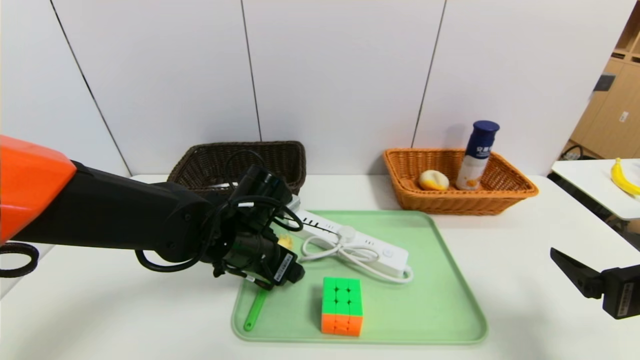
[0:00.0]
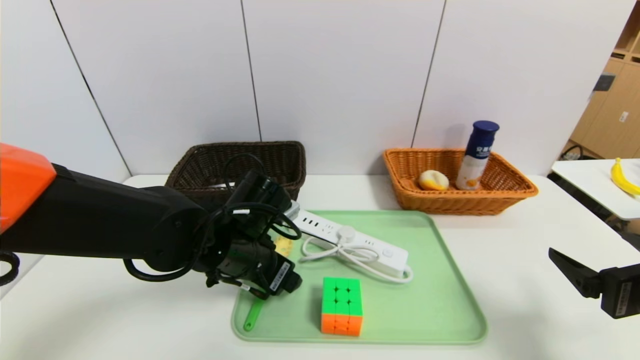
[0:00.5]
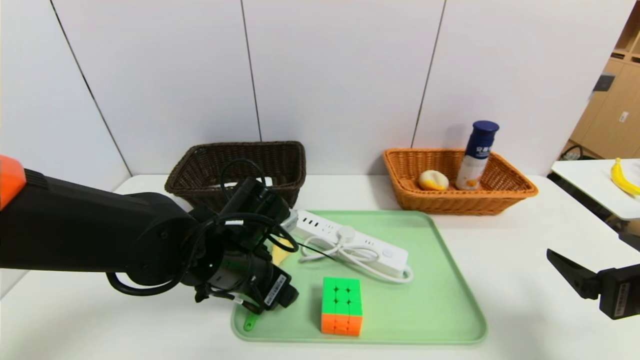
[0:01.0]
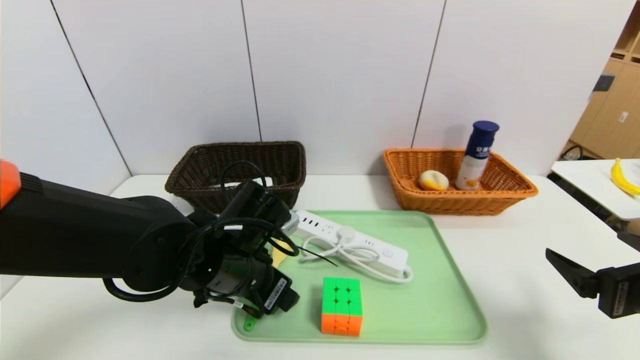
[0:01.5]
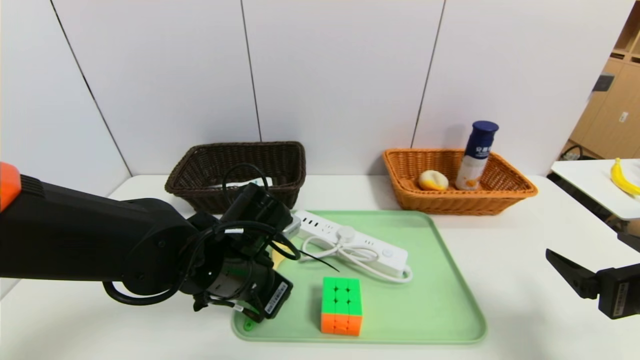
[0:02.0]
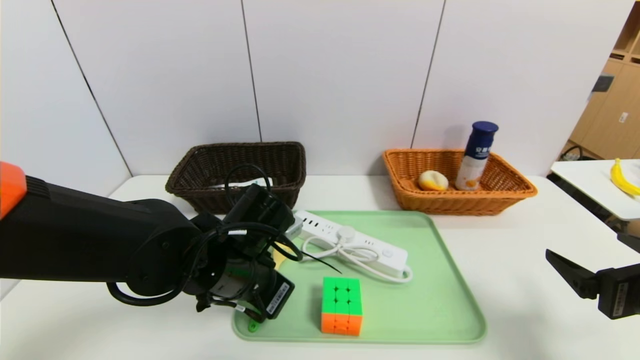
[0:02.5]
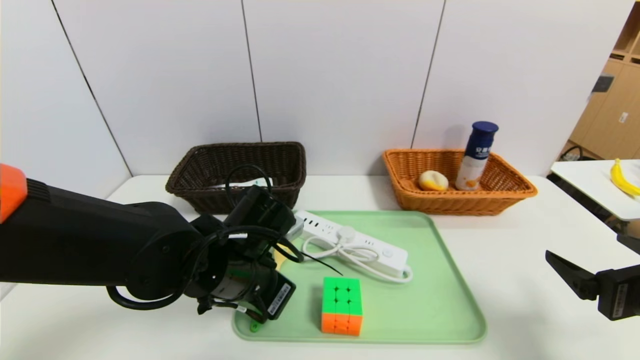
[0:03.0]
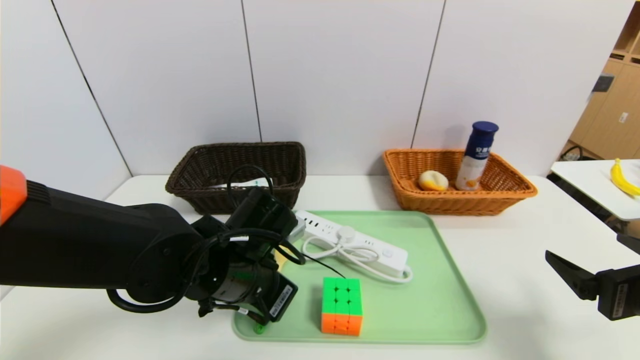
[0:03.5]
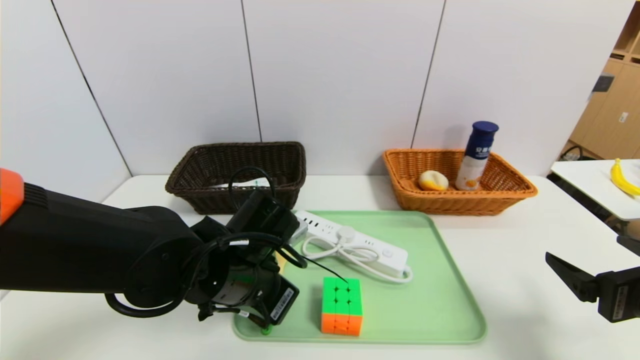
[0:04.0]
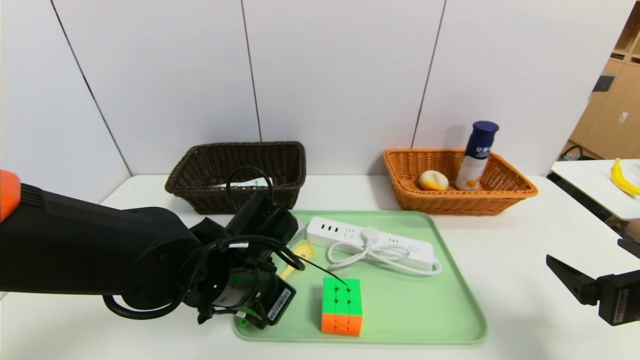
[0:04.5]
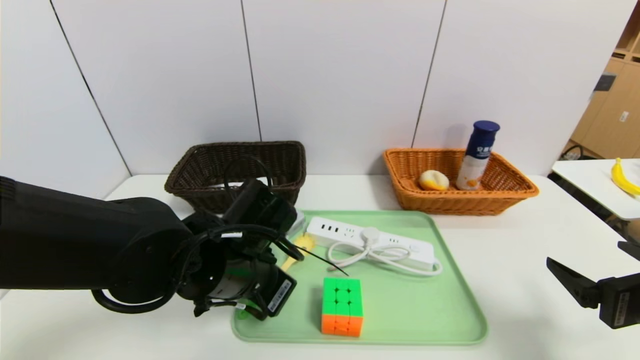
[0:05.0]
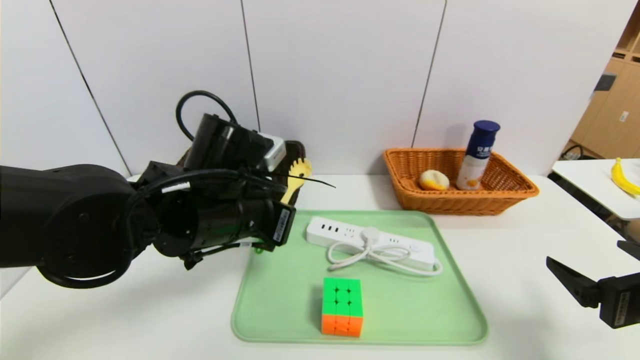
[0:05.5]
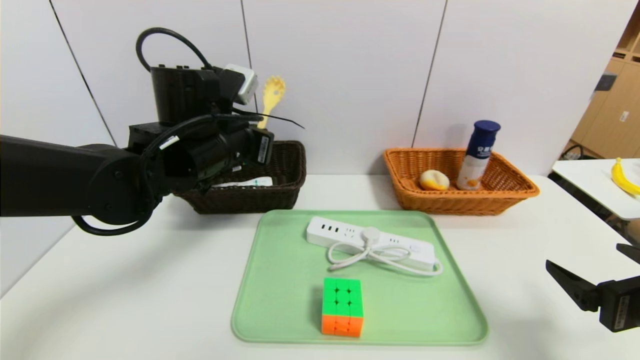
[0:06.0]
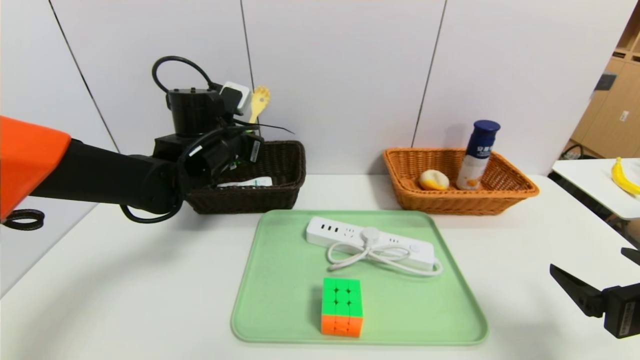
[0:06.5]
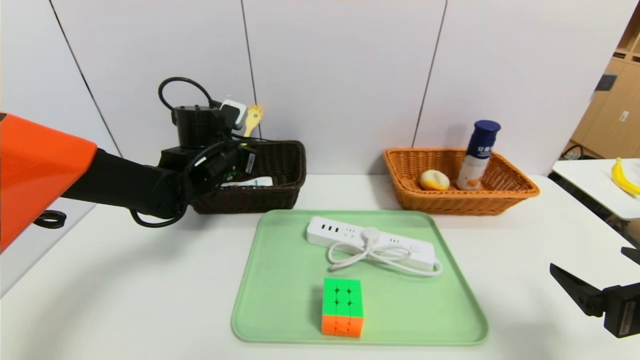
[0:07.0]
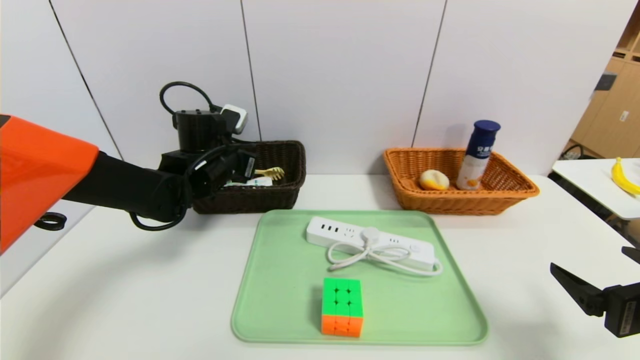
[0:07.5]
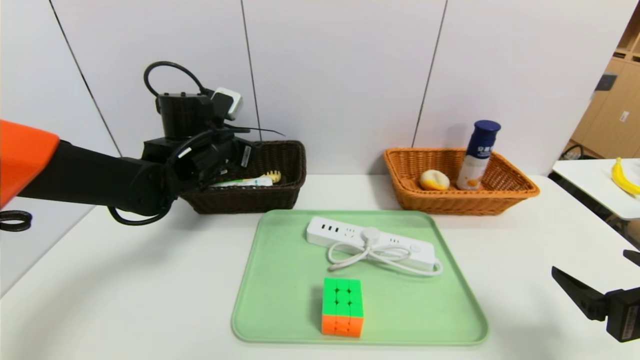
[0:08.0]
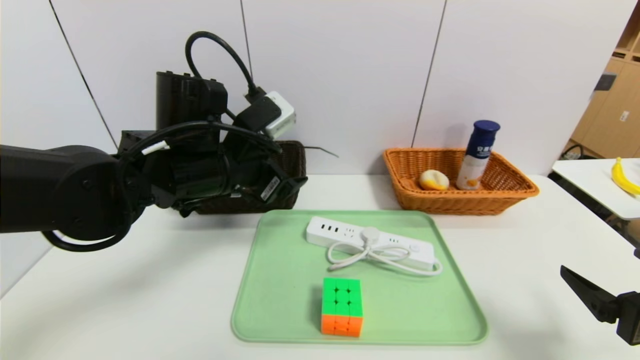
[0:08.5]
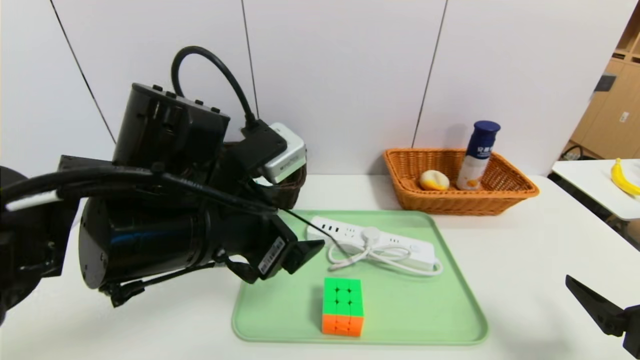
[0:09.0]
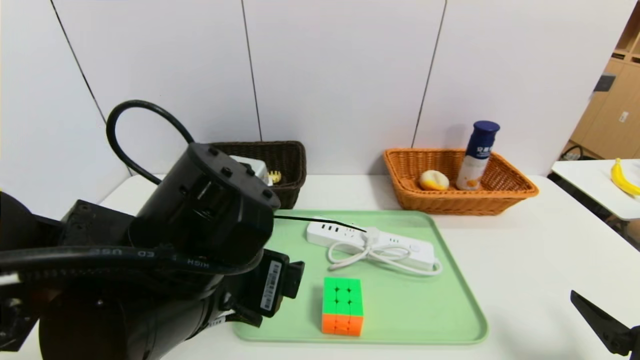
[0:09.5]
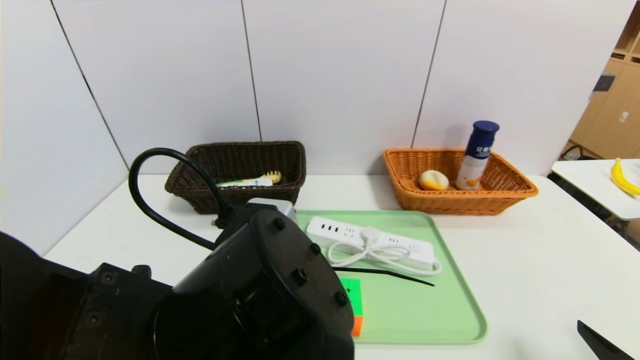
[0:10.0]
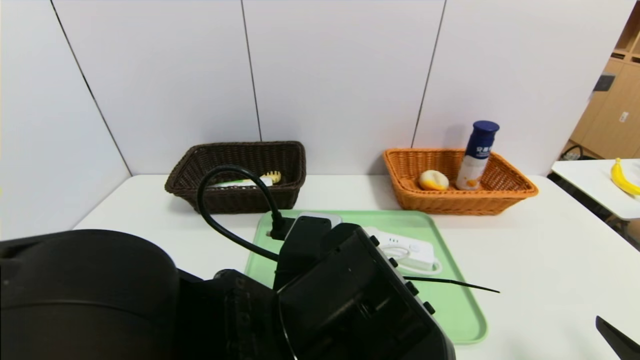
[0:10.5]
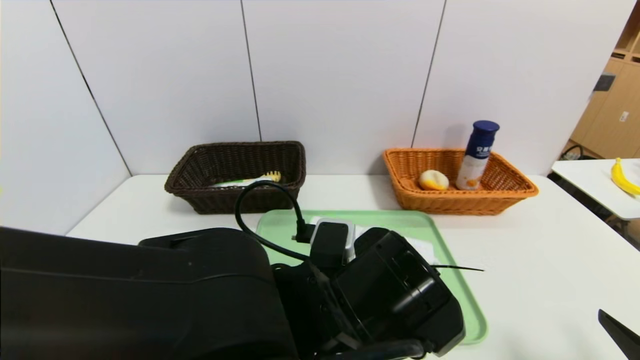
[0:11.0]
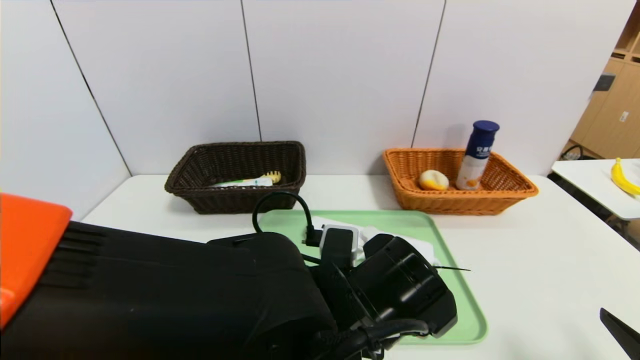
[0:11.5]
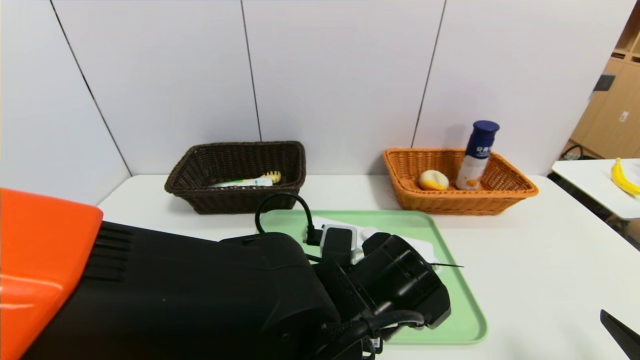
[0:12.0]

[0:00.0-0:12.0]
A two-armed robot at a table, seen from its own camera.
Task of the whole recording: place the food in the right basket with the right gripper, and place the non food items in the left basket with the left gripper.
Step, 0:00.0 to 0:07.5: Grasp the back scratcher and put it in the left basket.
0:00.0 to 0:02.0: The left gripper closes.
0:02.0 to 0:04.0: The two grippers keep their place.
0:04.0 to 0:06.0: The left gripper goes some 15 cm upward and forward.
0:06.0 to 0:08.0: The left gripper moves forward, some 5 cm, and opens its fingers.
0:08.0 to 0:10.0: The right gripper moves roughly 5 cm; the left gripper is displaced backward by roughly 25 cm.
0:10.0 to 0:12.0: The left gripper heads to the right, downward and forward, covering some 15 cm.

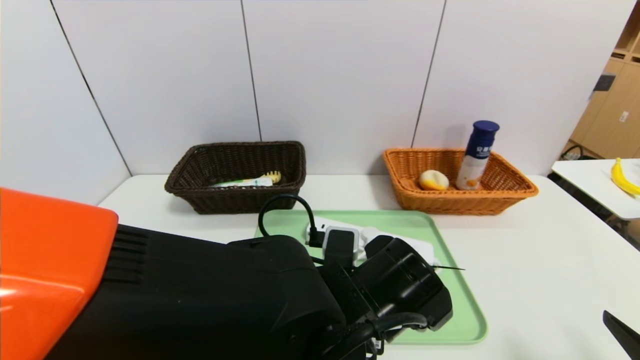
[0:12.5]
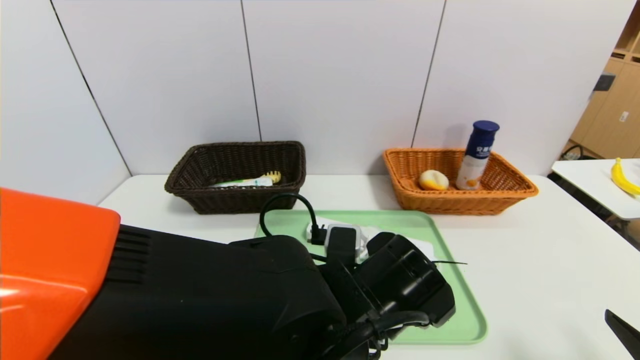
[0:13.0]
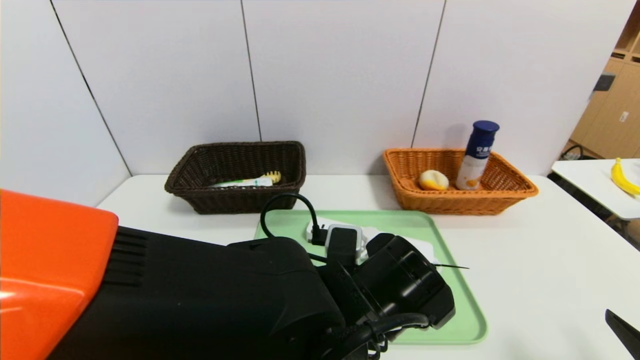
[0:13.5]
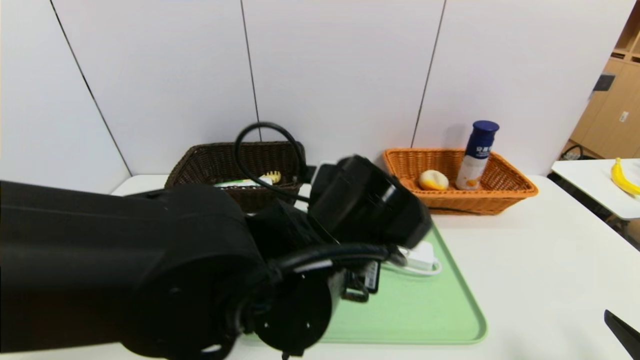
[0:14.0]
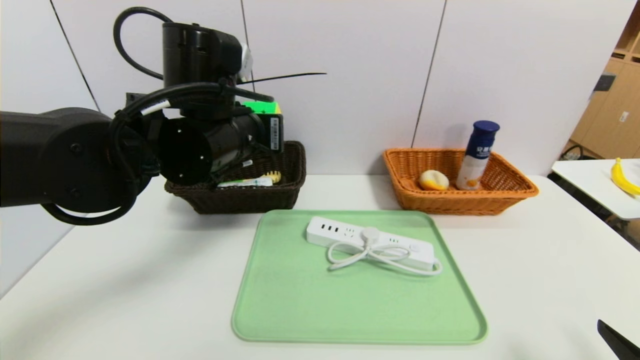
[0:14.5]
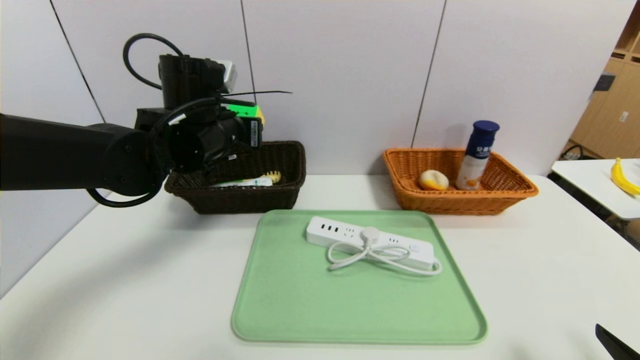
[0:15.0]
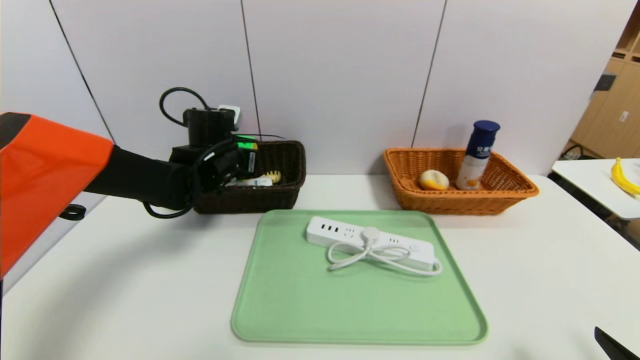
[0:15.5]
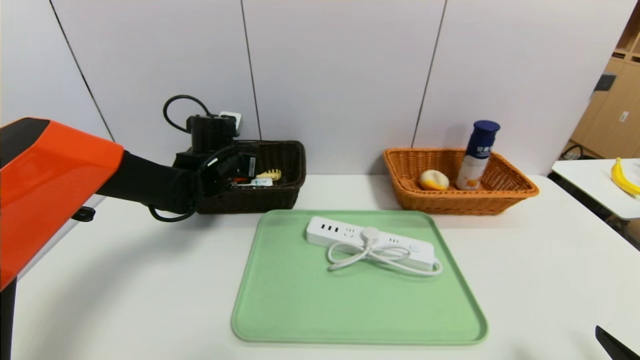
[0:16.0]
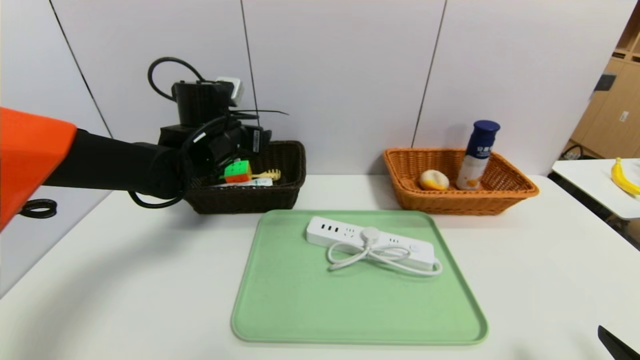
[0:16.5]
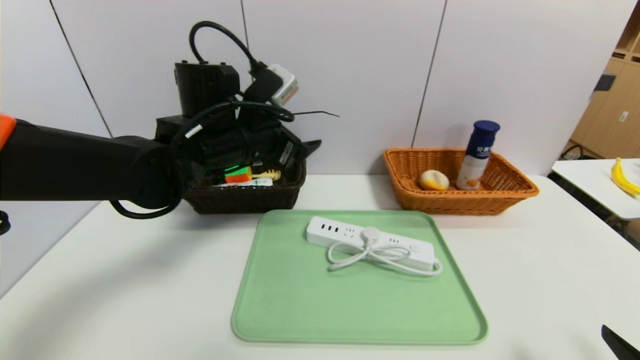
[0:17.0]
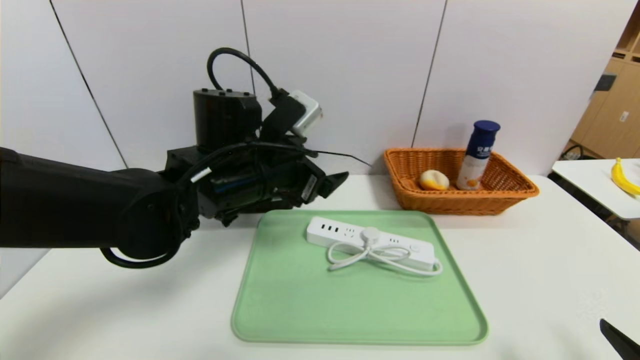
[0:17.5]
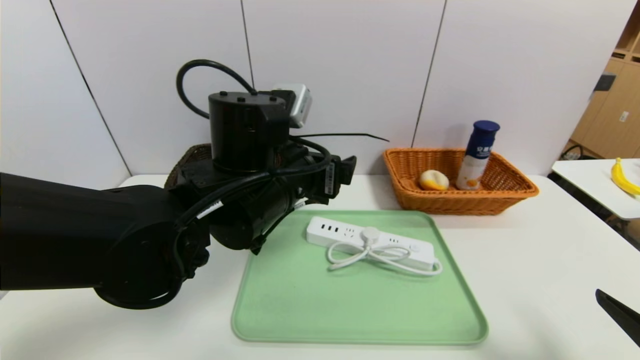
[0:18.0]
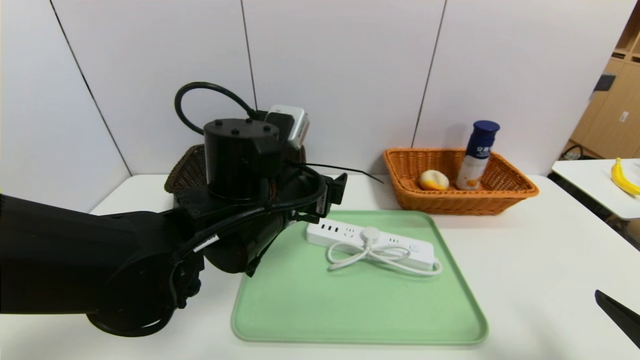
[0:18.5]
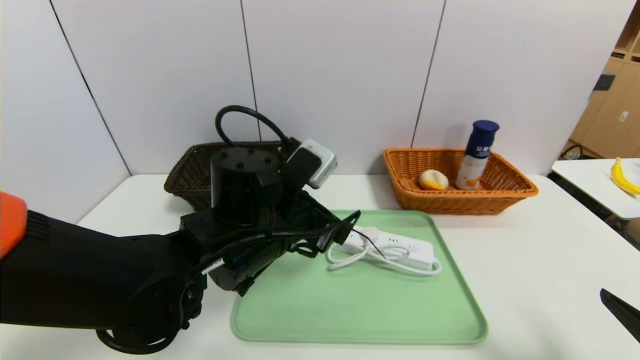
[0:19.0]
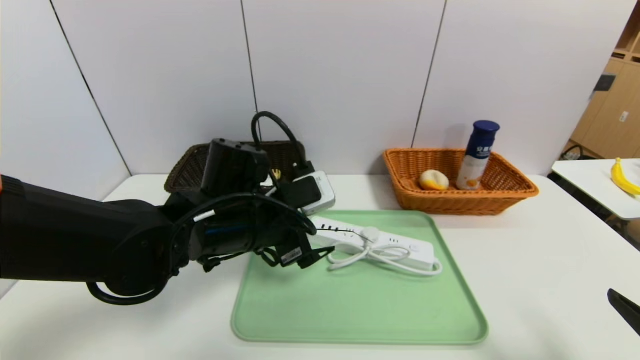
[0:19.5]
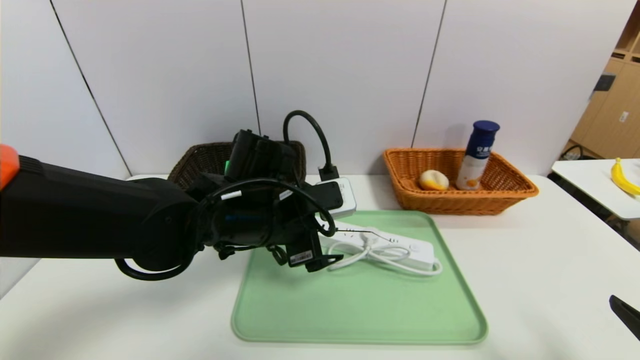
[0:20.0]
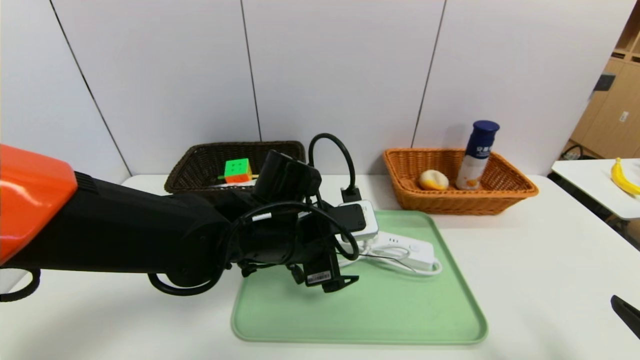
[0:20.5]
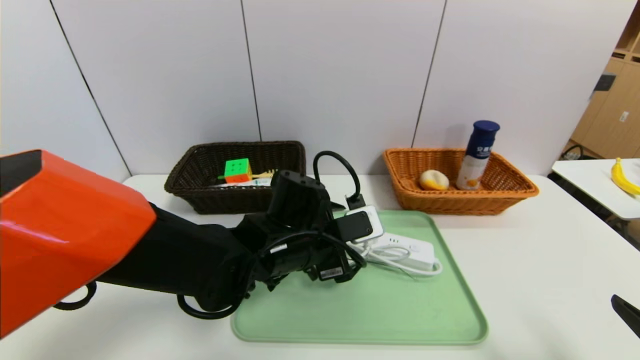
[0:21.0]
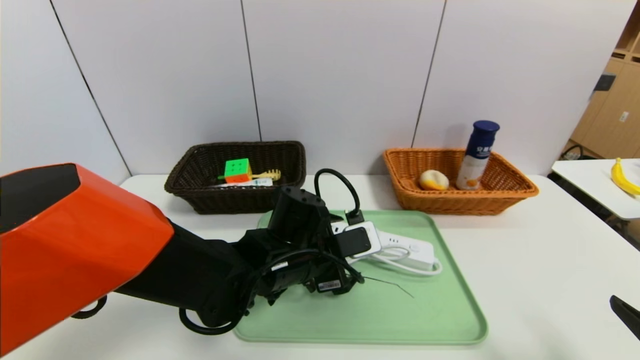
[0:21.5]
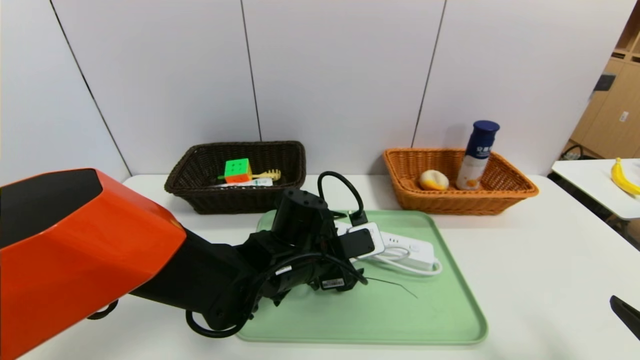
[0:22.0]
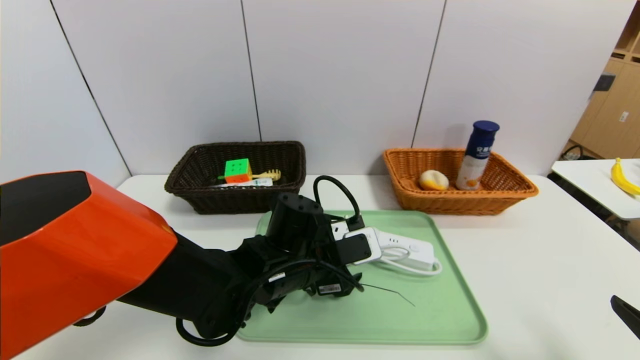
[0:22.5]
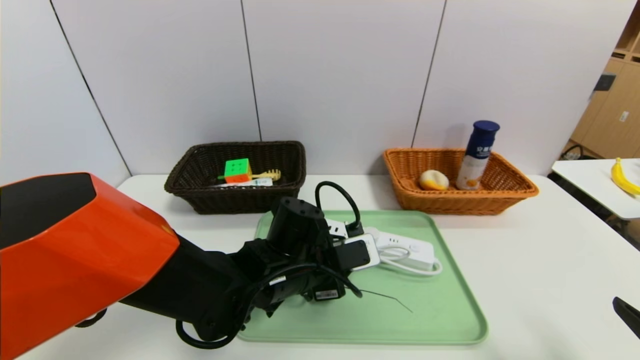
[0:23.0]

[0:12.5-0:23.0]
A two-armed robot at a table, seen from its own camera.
Task of the whole recording: place the food in the right basket with the right gripper, and place the non food items in the left basket with the left gripper.
Step, 0:12.5 to 0:16.0: Grasp the rubiks cube and put it in the left basket.
0:12.5 to 0:14.5: The left gripper travels upward, to the left and forward by roughly 20 cm, and closes.
0:14.5 to 0:16.5: The left gripper heads forward, covering approximately 10 cm, and opens its fingers.
0:16.5 to 0:19.0: The left gripper heads backward and to the right, covering approximately 15 cm.
0:19.0 to 0:21.0: The left gripper is displaced downward by roughly 5 cm.
0:21.0 to 0:23.0: The left gripper closes its fingers.
